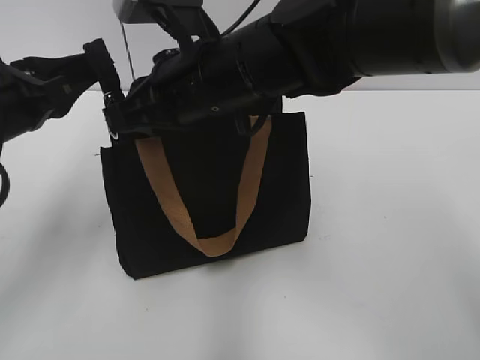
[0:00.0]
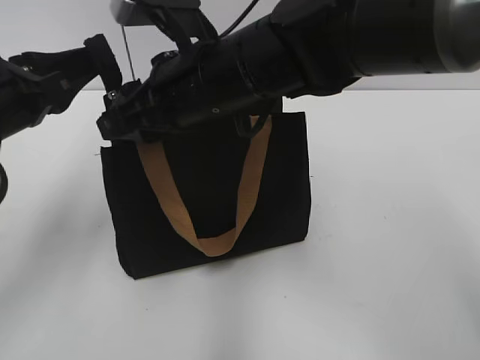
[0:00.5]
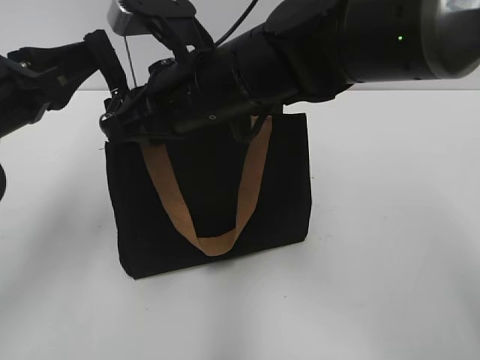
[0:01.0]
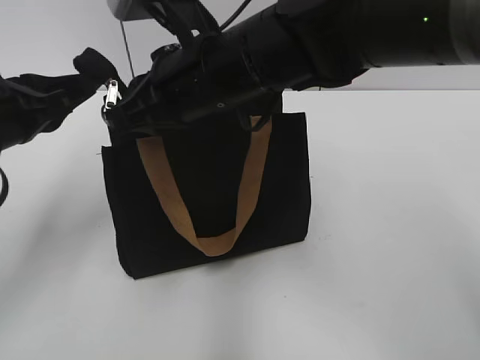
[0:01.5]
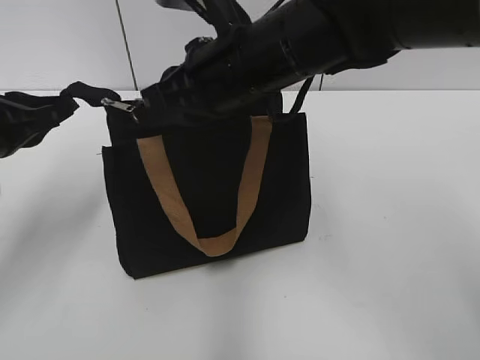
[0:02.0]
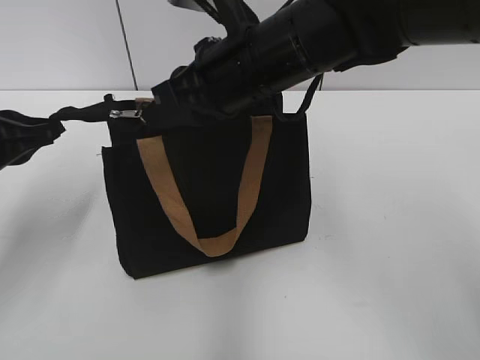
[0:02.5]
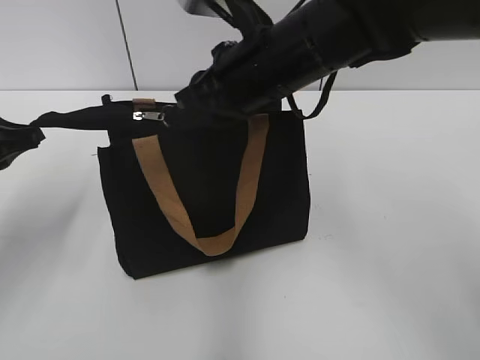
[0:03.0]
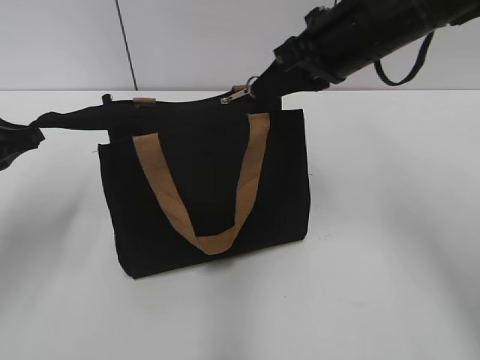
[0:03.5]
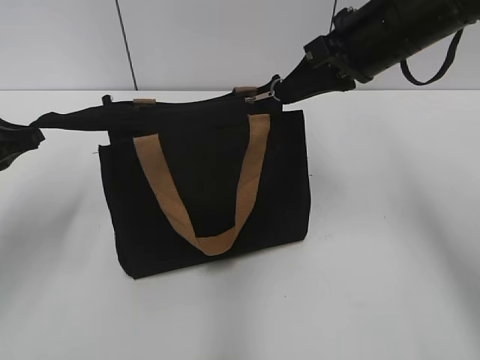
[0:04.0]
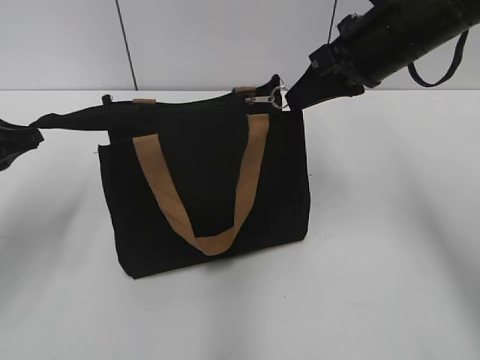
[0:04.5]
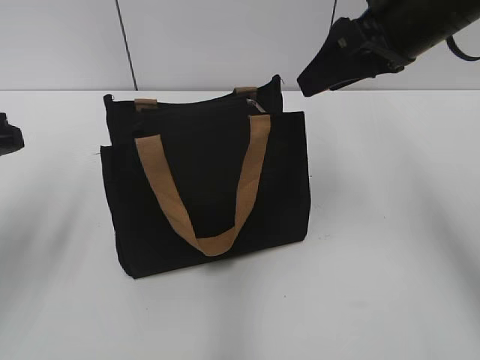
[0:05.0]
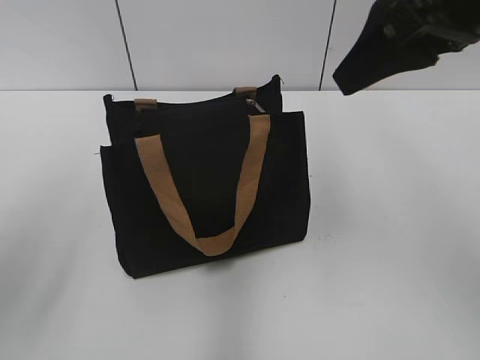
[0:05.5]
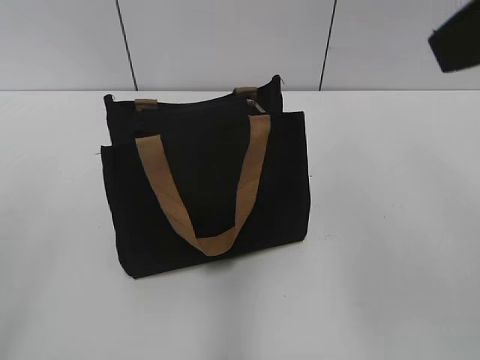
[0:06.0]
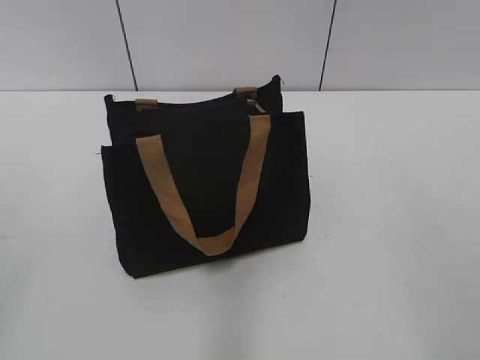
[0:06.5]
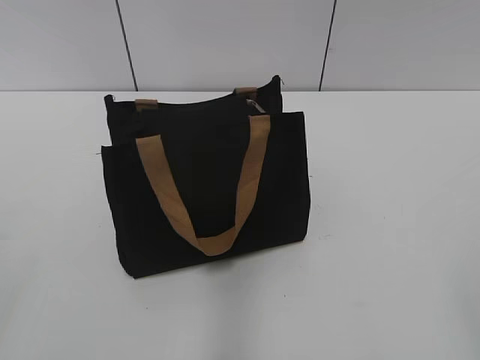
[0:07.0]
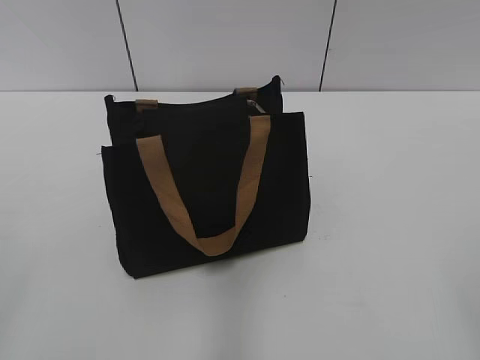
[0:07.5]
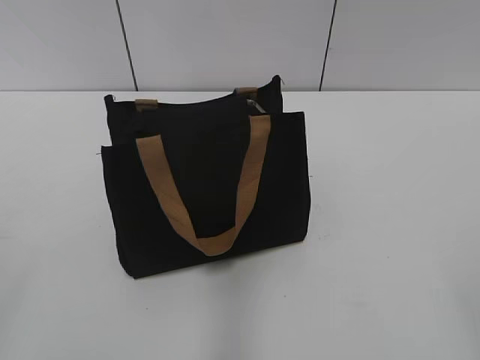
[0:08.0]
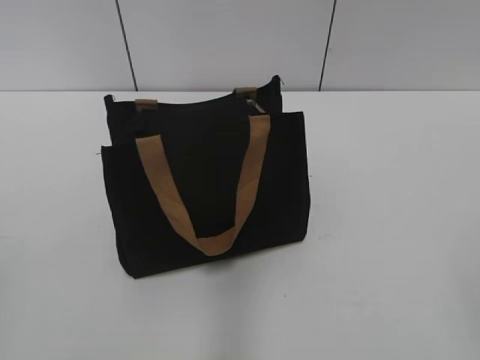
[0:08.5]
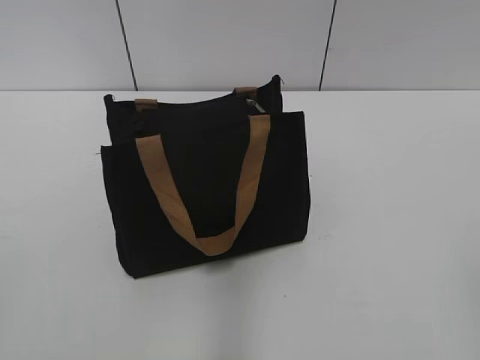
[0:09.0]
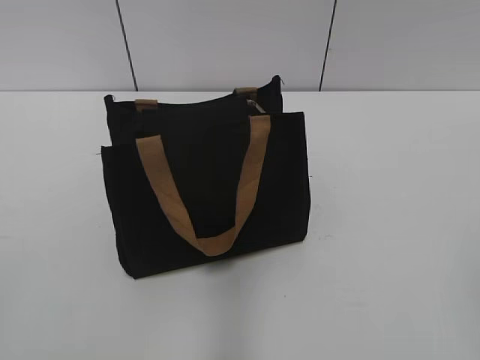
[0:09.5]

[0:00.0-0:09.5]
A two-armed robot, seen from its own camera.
Step, 0:00.0 to 0:04.5: Zip up the bag with your right hand.
0:00.0 to 0:02.0: The right gripper opens, then closes again.
0:02.0 to 0:04.0: The right gripper goes approximately 15 cm to the right.
0:04.0 to 0:05.5: The left gripper heads upward and backward, covering about 10 cm, and opens its fingers, while the right gripper moves backward and upward, roughly 10 cm, and opens up.
0:05.5 to 0:07.5: The right gripper shifts about 30 cm backward and to the right; the left gripper is displaced backward and to the left by roughly 20 cm.
